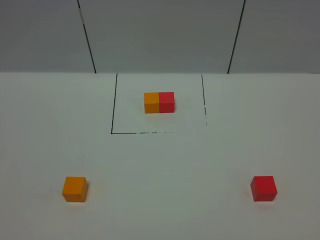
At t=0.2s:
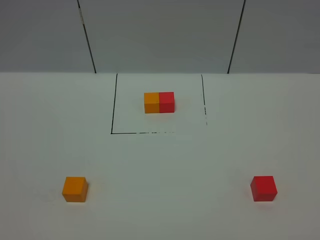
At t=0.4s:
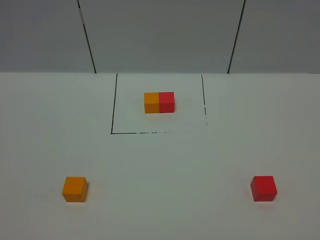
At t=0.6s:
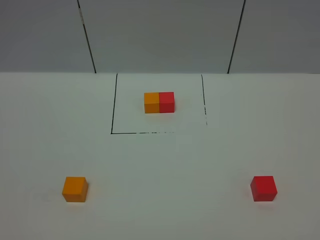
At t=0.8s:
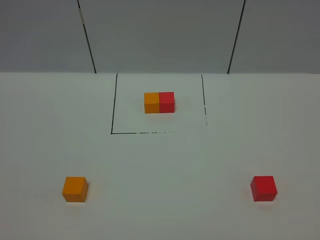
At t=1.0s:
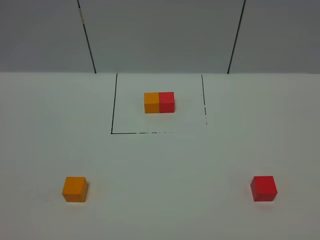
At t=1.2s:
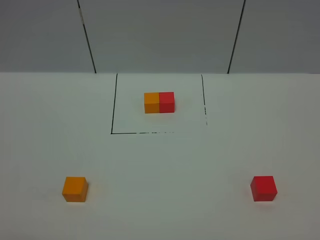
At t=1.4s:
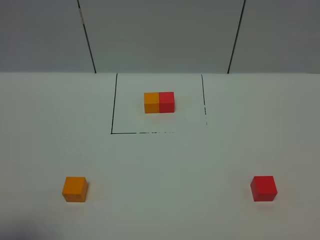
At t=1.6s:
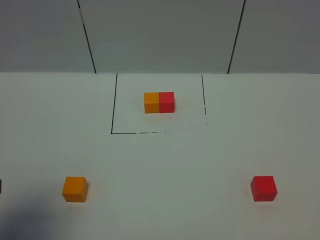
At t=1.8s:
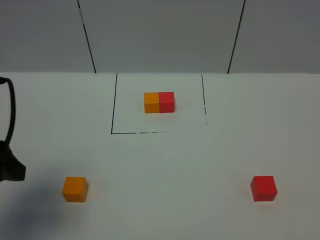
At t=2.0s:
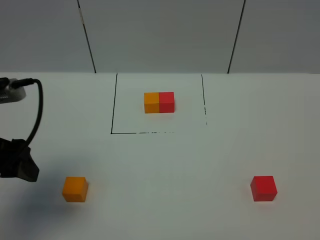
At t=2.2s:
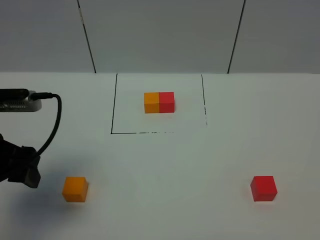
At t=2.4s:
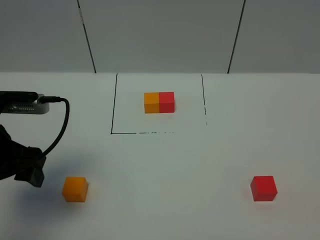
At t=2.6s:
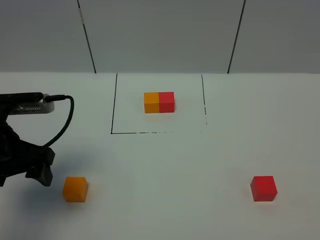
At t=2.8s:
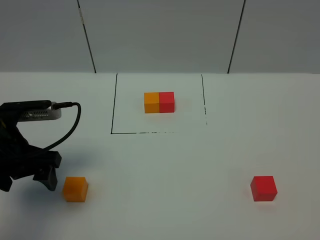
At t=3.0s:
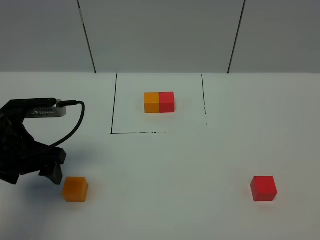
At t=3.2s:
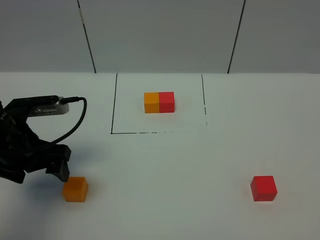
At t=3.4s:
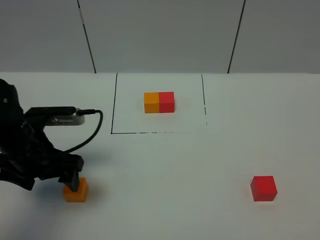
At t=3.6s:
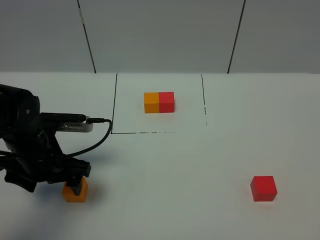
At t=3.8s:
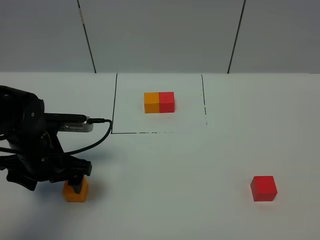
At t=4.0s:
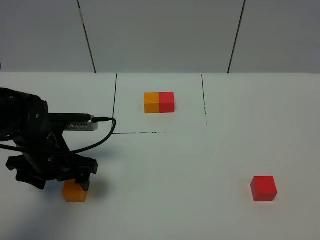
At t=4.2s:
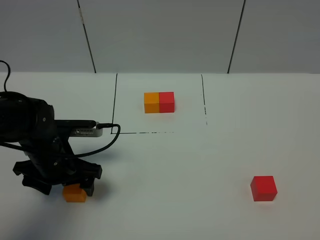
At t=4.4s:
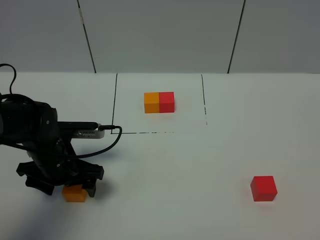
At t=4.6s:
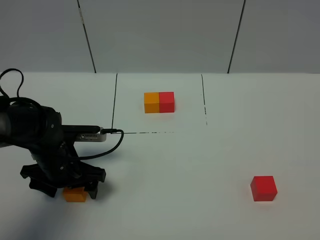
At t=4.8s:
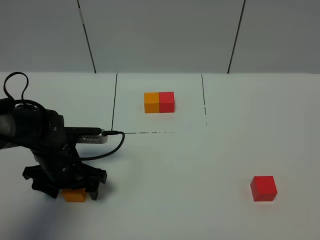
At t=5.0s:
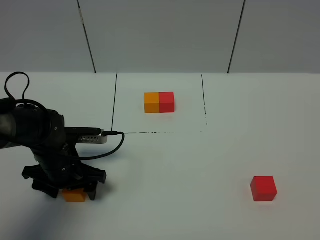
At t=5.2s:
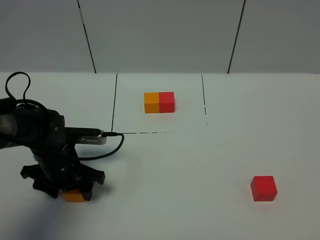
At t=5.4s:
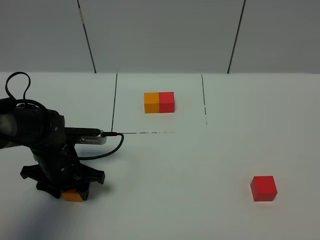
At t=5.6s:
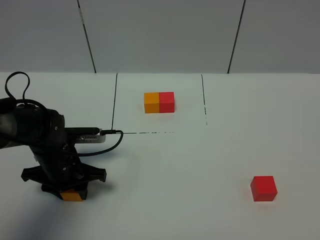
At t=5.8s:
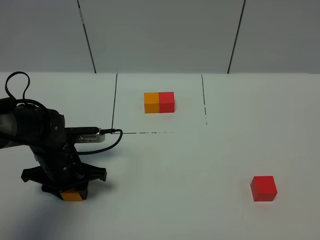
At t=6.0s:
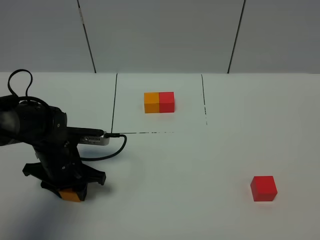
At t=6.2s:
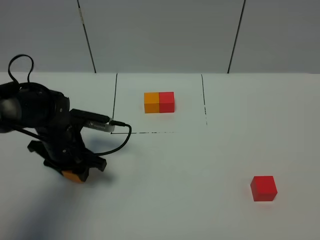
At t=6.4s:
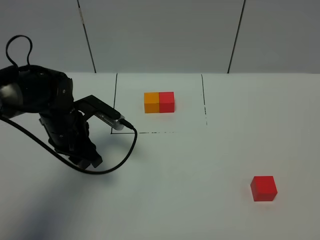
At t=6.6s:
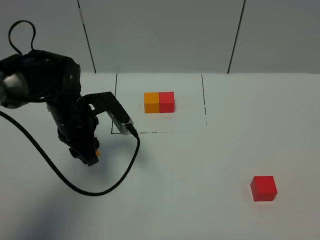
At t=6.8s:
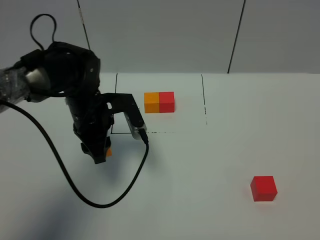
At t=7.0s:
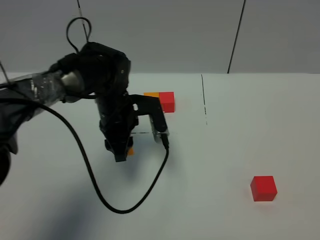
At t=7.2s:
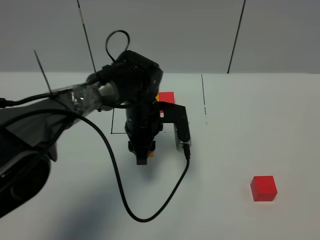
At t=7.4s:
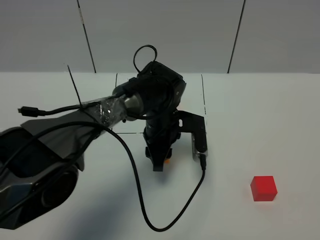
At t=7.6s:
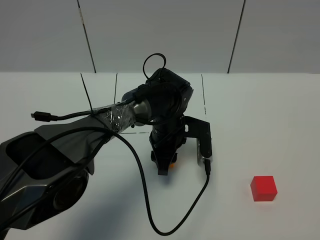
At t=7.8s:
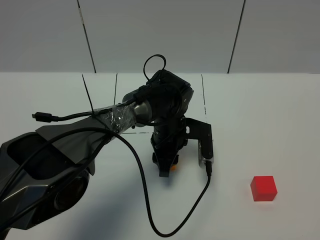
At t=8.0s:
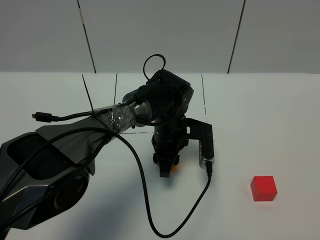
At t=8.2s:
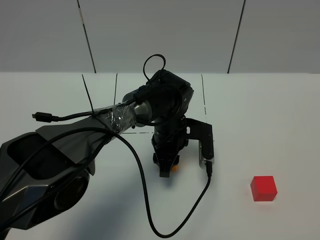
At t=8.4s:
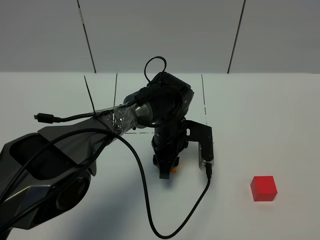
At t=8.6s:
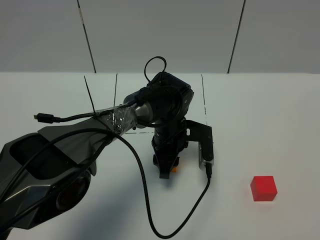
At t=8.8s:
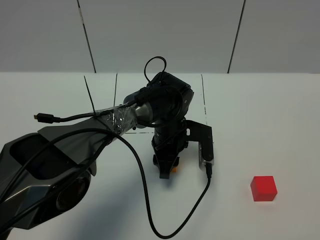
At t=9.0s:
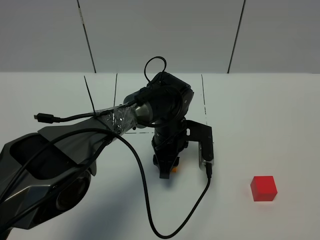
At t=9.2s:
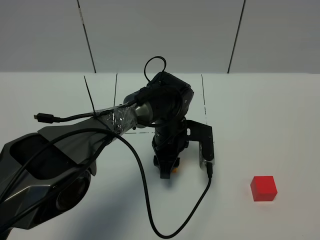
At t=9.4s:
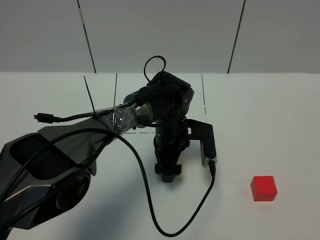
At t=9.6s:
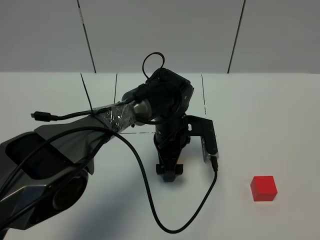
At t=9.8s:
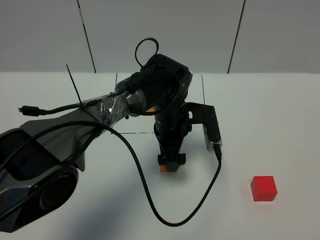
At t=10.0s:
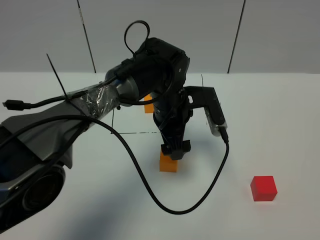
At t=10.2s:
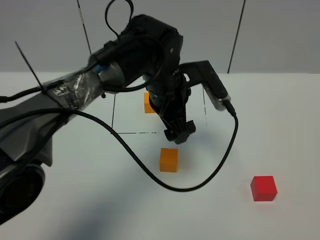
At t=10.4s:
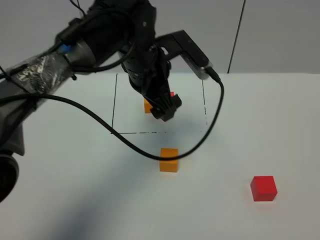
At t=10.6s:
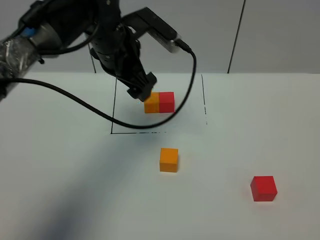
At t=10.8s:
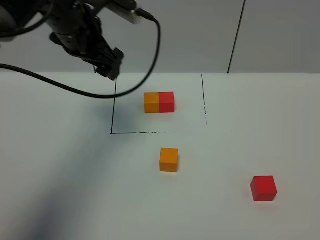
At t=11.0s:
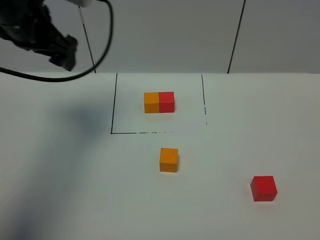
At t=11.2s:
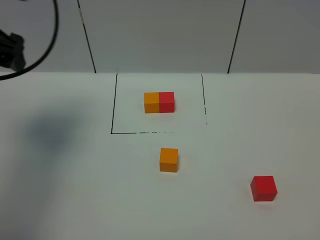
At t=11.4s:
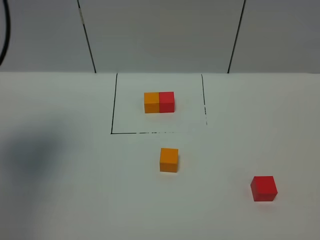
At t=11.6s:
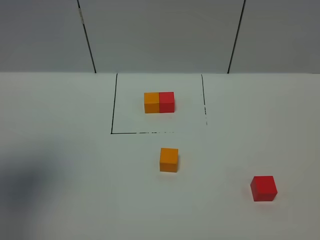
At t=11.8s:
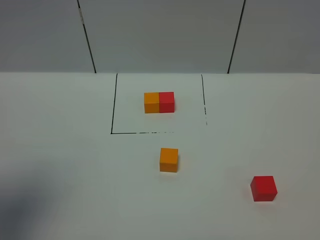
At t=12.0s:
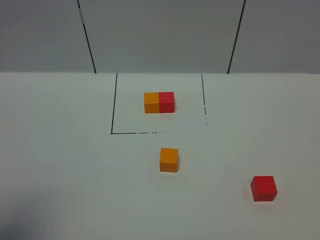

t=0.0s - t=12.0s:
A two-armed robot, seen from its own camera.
Task of the whole recording: According to the building block template in front, assemble the scattered blocks together.
Step, t=1.6s - t=10.0s: Put the orange cube in the center of the table.
t=0.0s - t=1.6s: The left gripper shifts roughly 15 cm forward.
t=1.6s - t=3.0s: The left gripper heads forward and downward, covering roughly 15 cm.
t=3.0s - t=4.4s: The left gripper shifts roughly 10 cm downward.
t=4.4s - t=6.0s: The left gripper closes.
t=6.0s - t=7.6s: The left gripper shifts about 20 cm to the right.
t=7.6s - t=9.0s: The two grippers keep their place.
t=9.0s - t=10.4s: The left gripper heads upward, covering some 20 cm, and opens its fingers.
t=10.4s - t=12.0s: The left gripper is displaced backward, to the left and upward by about 40 cm.

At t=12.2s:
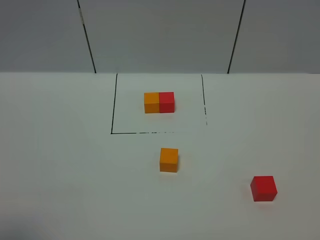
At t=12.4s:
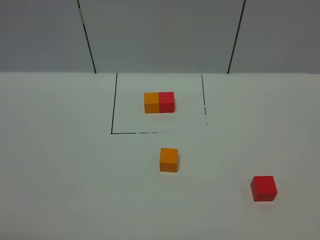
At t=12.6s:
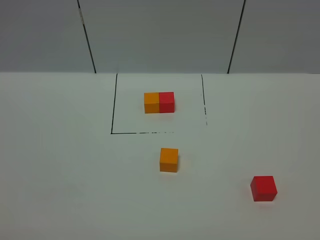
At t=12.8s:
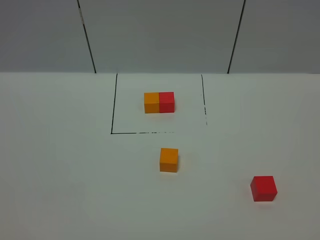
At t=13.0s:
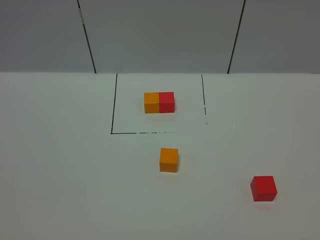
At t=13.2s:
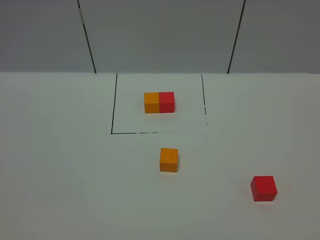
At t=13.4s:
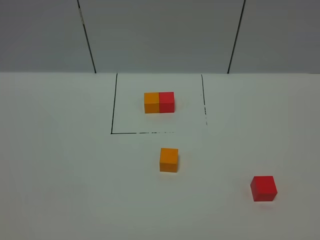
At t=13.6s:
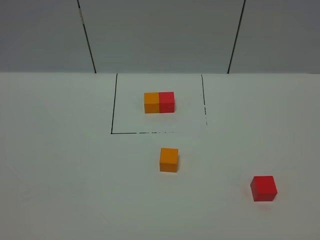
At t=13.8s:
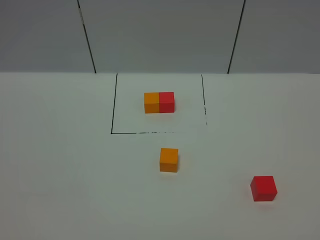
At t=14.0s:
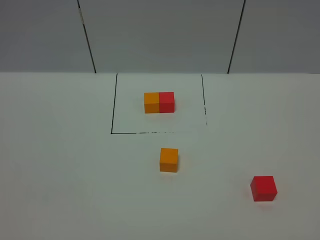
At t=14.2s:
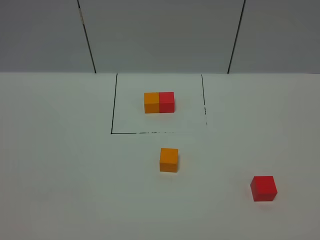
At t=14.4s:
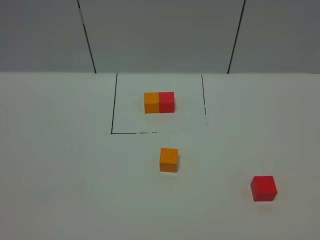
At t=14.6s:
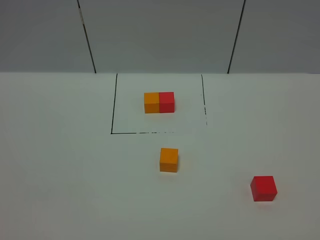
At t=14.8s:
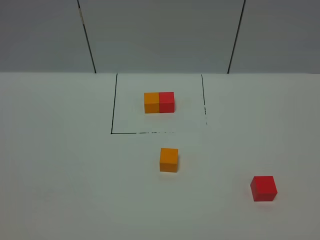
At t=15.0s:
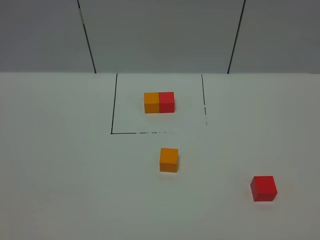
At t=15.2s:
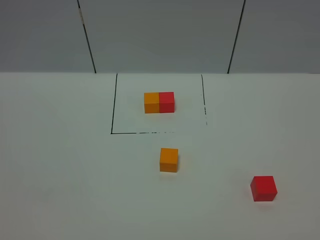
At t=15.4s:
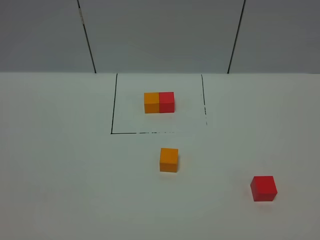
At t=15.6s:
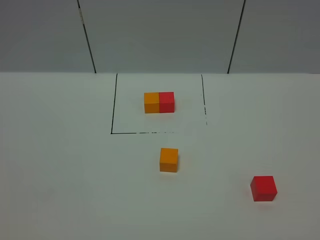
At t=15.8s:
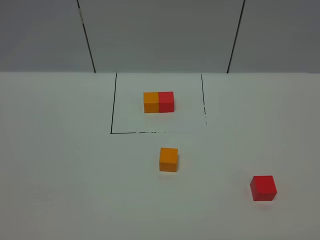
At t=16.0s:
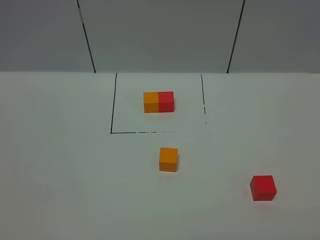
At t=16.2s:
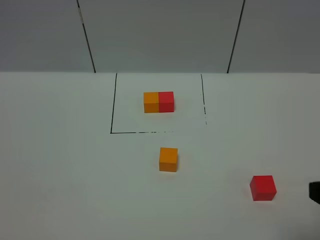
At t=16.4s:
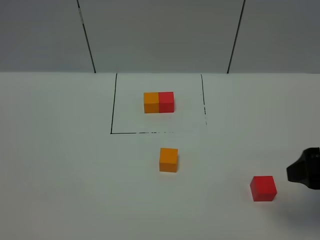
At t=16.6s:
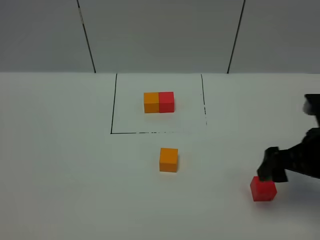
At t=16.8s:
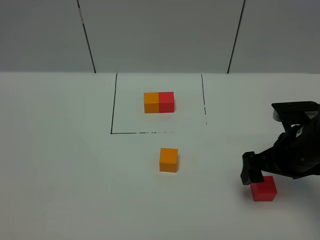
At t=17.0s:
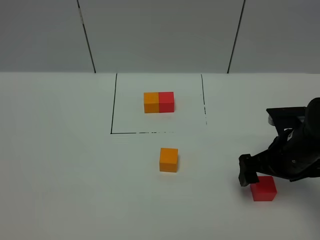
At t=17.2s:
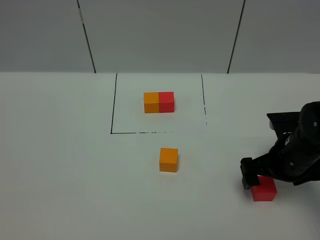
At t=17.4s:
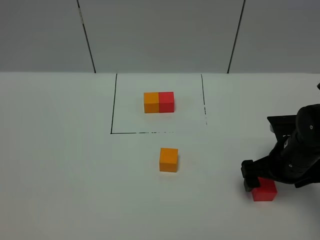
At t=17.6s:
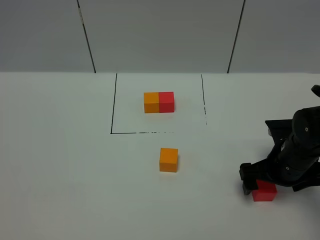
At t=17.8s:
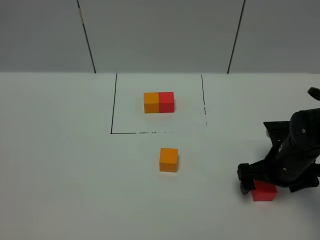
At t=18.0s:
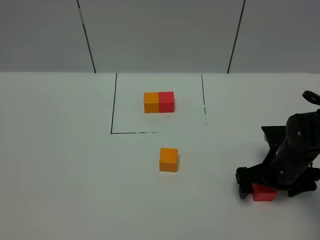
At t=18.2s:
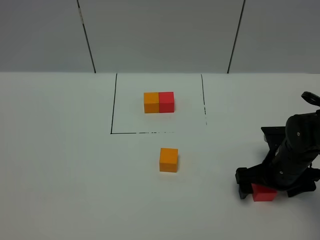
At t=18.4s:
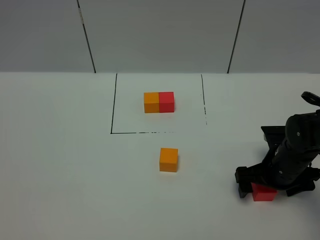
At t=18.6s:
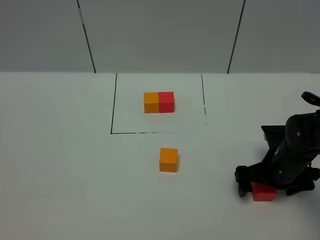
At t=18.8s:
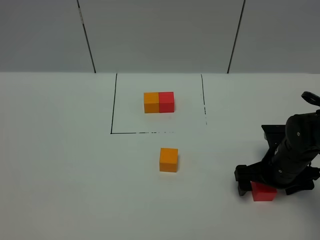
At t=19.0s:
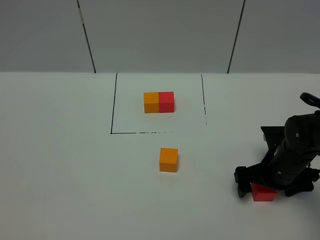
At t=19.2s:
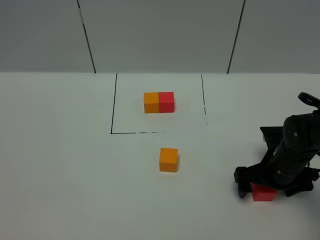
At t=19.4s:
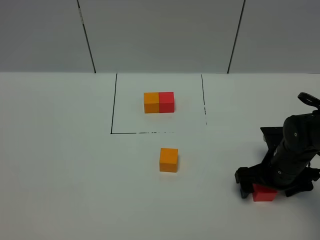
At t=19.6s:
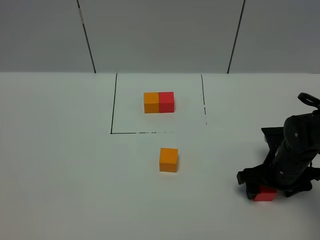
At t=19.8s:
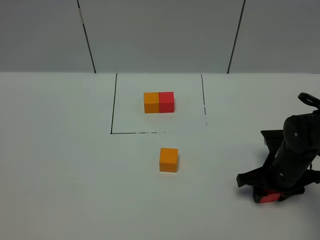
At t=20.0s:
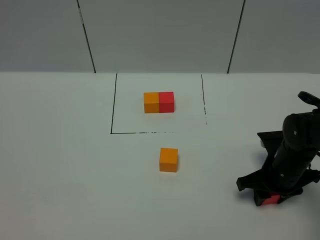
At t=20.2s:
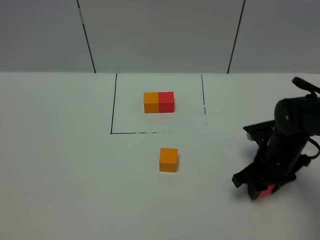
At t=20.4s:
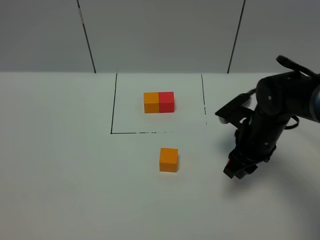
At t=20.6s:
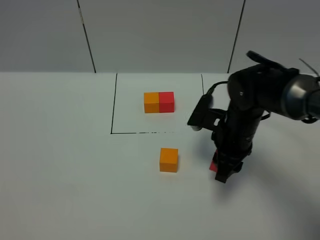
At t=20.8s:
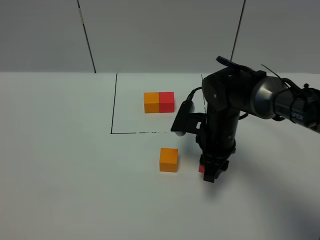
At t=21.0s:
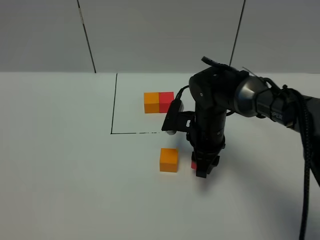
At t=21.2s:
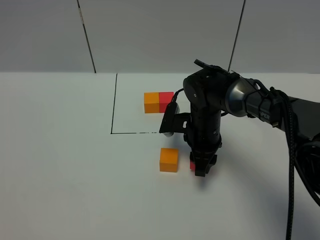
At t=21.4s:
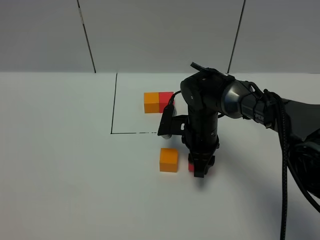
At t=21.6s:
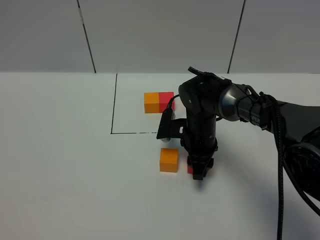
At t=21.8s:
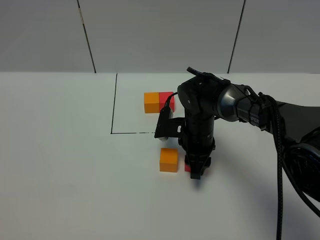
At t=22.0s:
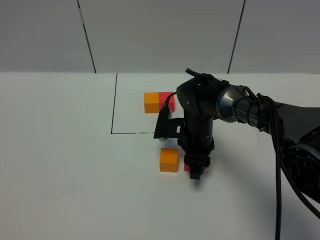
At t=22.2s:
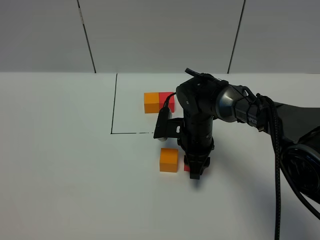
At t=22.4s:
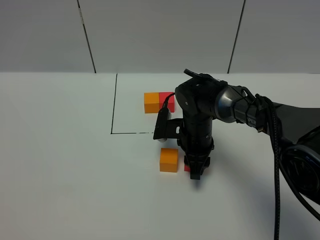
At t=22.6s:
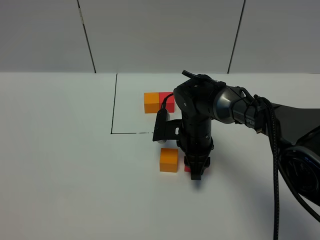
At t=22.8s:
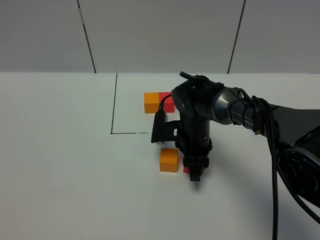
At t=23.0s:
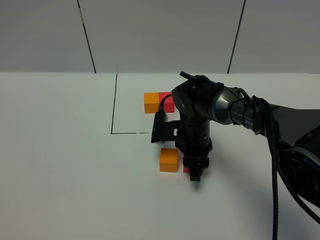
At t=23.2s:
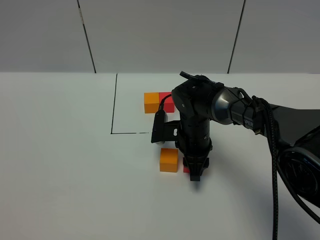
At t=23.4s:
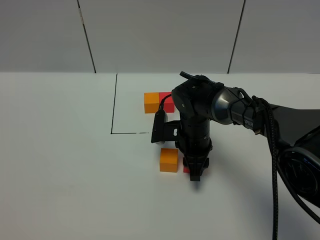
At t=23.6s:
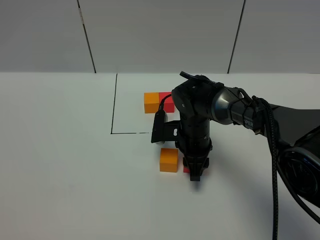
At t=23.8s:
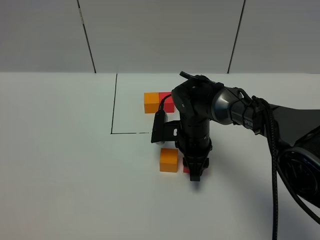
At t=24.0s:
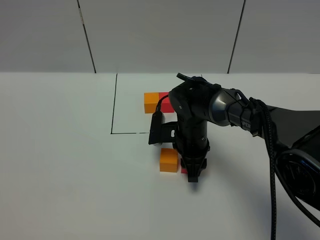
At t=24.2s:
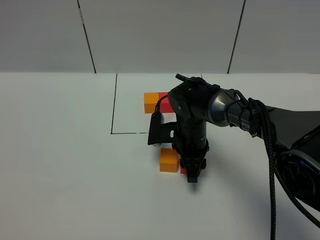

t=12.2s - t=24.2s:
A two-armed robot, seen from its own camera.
Task of the whole recording: According to the building block template in front, assemble the scattered blocks together.
t=13.8s - t=15.2s: Neither gripper changes place.
t=15.2s - t=16.6s: The right gripper goes approximately 25 cm forward, and opens.
t=16.6s - t=18.2s: The right gripper heads downward and forward, covering some 15 cm.
t=18.2s - t=19.8s: The right gripper closes up.
t=19.8s - t=21.2s: The right gripper heads to the left and forward, covering approximately 15 cm.
t=21.2s - t=22.6s: There are only small adjustments of the grippers.
t=22.6s - t=24.2s: Both grippers stay about where they are.
